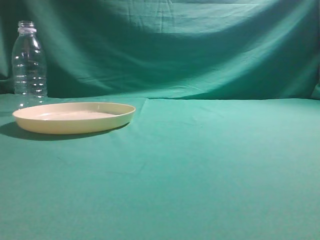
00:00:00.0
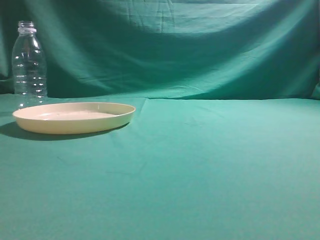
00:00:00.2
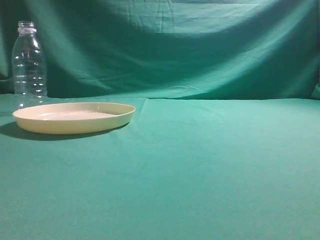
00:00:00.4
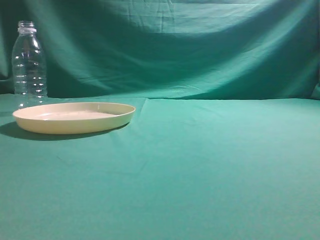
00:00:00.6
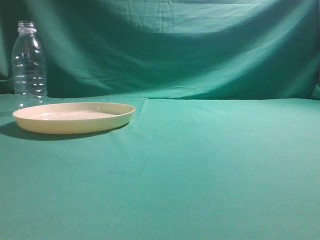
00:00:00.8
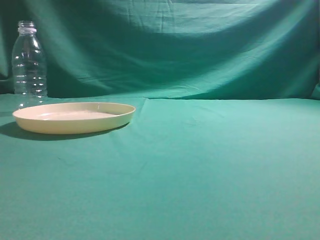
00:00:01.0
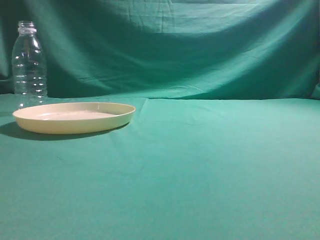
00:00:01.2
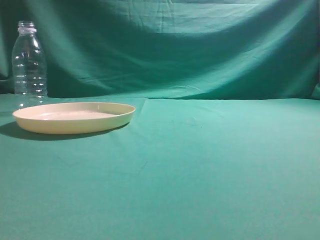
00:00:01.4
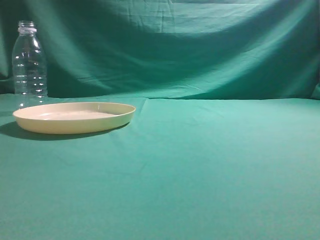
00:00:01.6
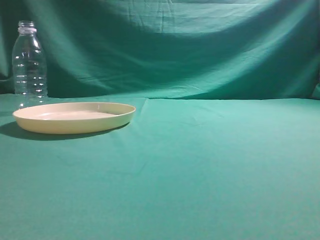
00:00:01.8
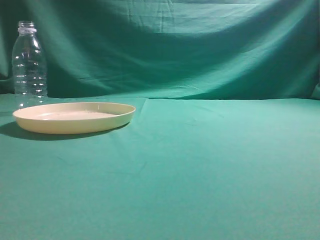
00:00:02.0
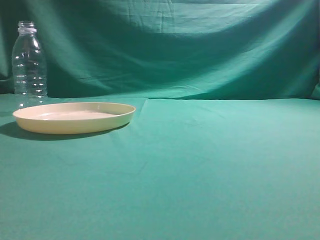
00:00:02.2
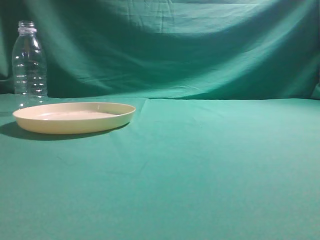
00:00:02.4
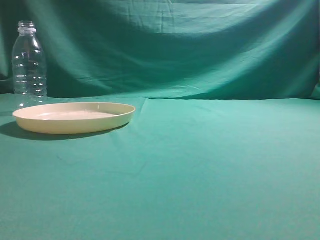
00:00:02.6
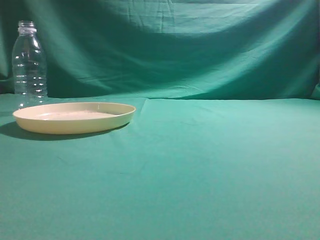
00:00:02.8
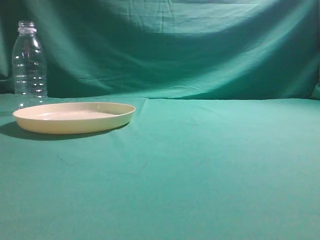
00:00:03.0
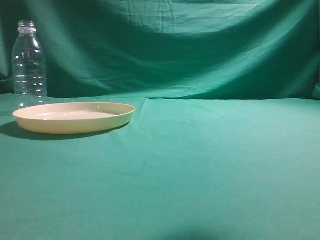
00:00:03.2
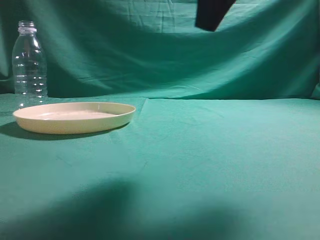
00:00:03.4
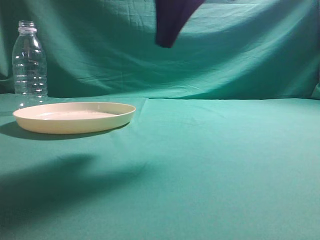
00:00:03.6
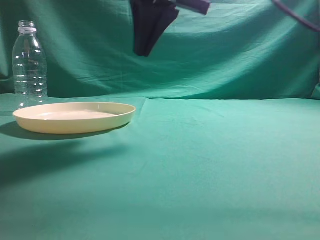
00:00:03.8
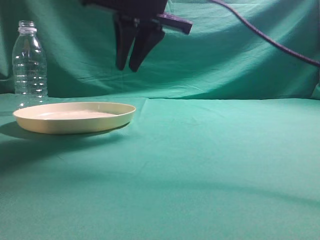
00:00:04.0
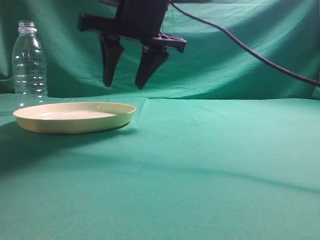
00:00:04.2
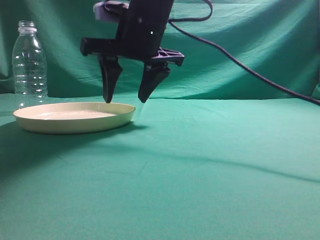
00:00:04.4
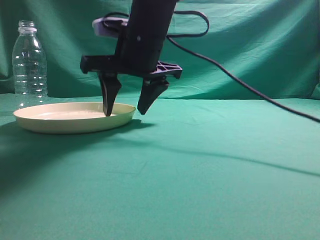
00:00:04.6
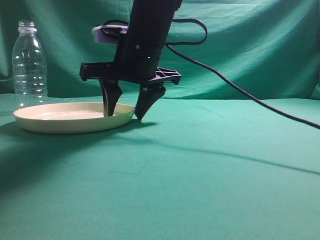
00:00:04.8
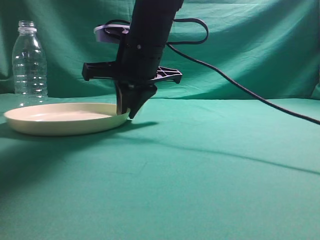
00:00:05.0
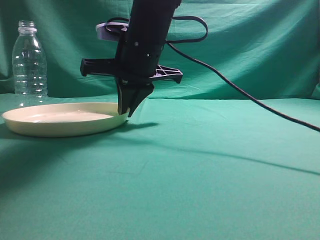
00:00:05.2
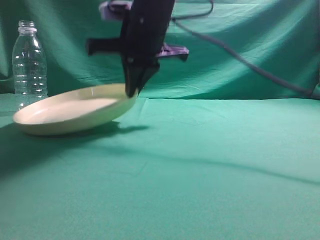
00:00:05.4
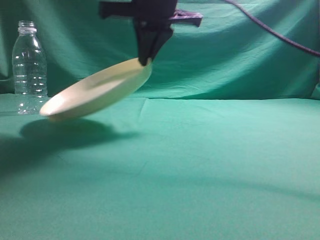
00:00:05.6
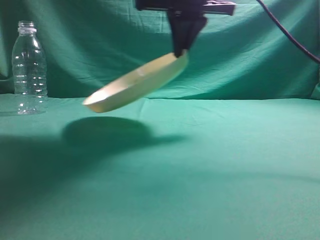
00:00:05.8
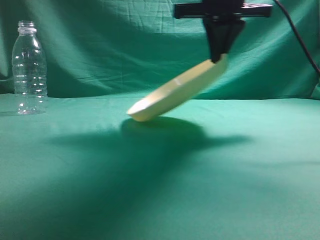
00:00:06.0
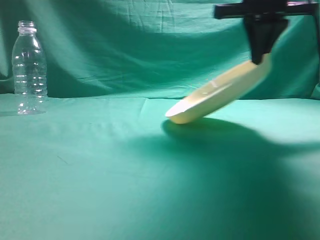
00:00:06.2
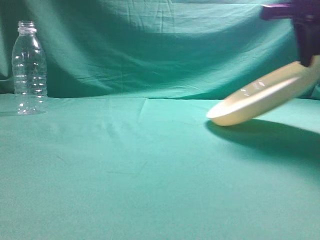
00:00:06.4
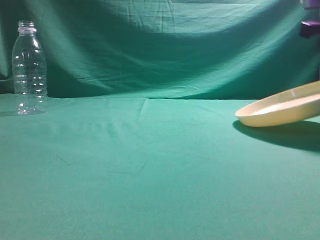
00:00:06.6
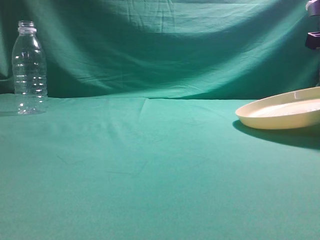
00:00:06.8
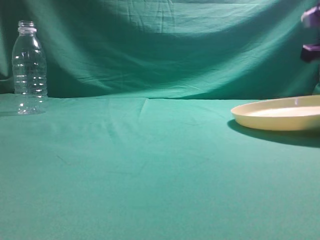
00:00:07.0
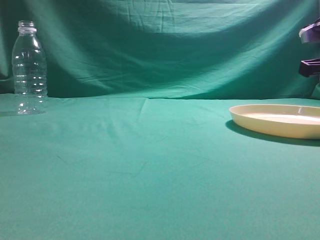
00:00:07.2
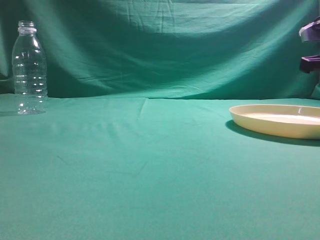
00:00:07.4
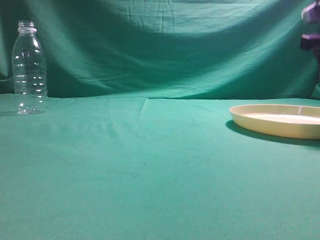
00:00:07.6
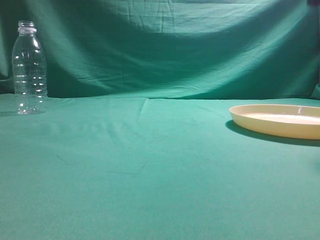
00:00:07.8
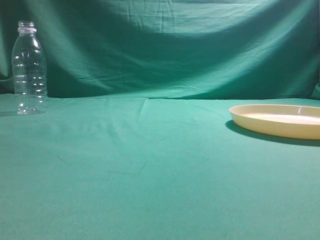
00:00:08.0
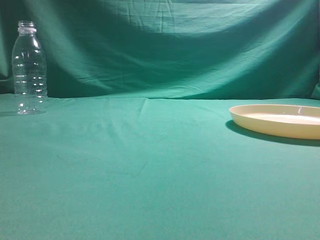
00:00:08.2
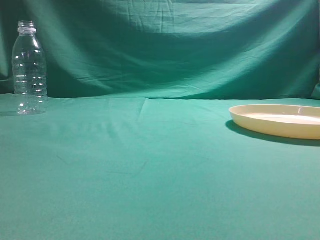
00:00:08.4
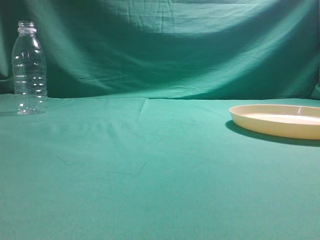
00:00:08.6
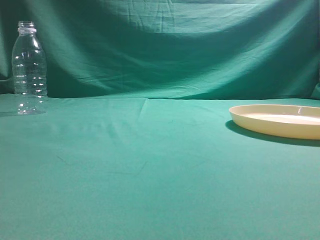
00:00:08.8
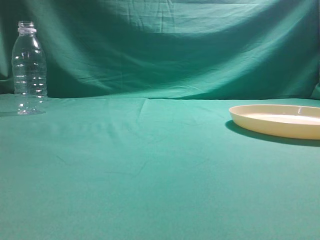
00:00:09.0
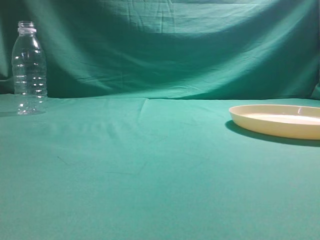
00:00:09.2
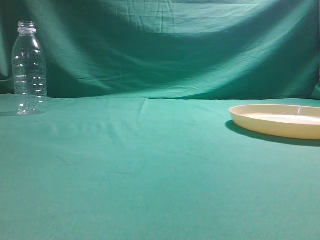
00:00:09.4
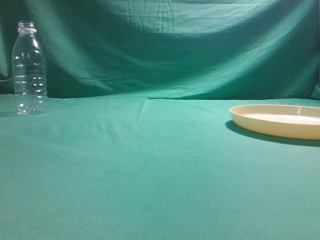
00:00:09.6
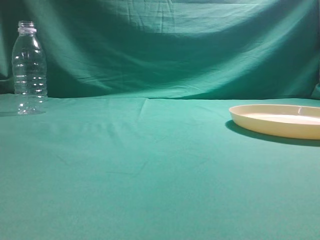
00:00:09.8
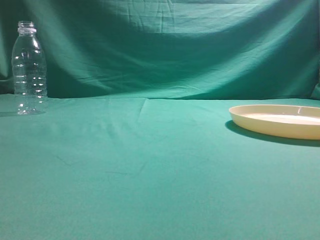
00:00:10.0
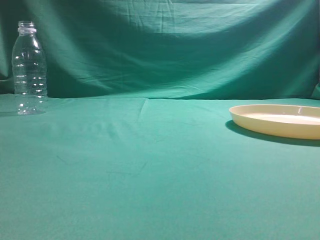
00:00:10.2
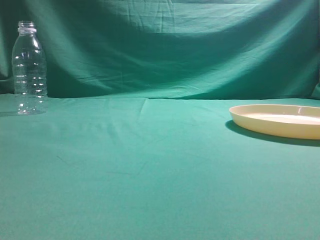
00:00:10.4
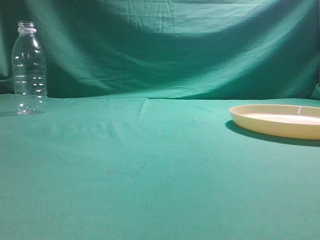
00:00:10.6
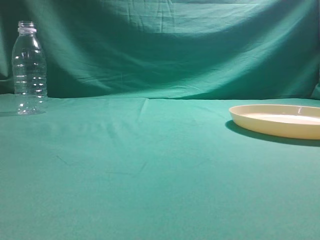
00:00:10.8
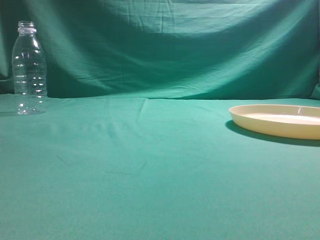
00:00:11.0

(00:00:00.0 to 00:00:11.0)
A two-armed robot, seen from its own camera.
Step, 00:00:00.0 - 00:00:05.6: Pick the container that can hold fruits.
Step, 00:00:05.8 - 00:00:07.6: Move the picked object to the right side of the table.
00:00:01.6 - 00:00:03.2: The right gripper heads forward, to the left and upward, covering about 20 cm.
00:00:03.2 - 00:00:04.8: The right gripper heads to the left, forward and downward, covering roughly 30 cm, and opens up.
00:00:04.8 - 00:00:06.2: The right gripper heads to the right and upward, covering about 20 cm, and closes its fingers.
00:00:06.2 - 00:00:07.8: The right gripper moves to the right, some 15 cm, and opens.

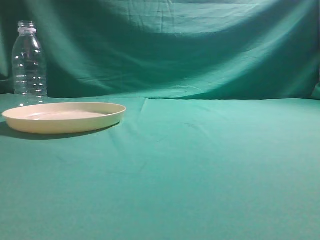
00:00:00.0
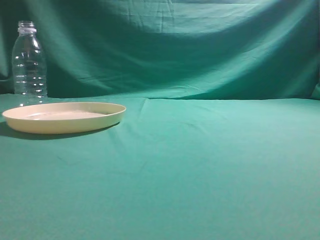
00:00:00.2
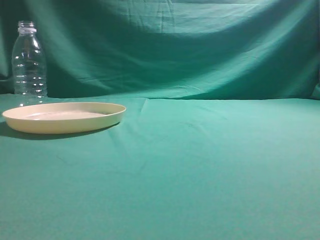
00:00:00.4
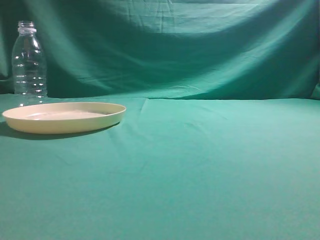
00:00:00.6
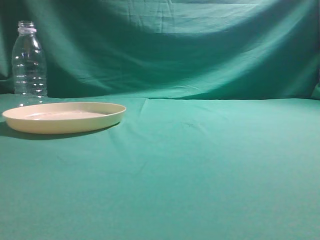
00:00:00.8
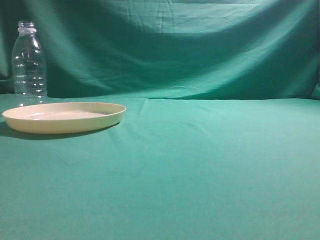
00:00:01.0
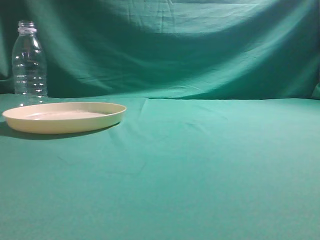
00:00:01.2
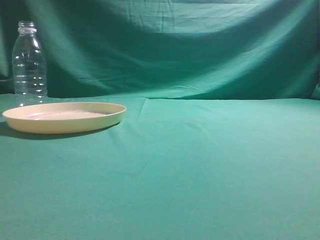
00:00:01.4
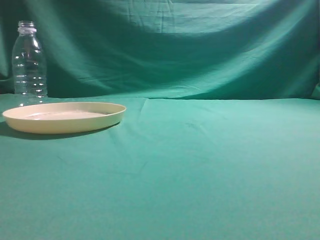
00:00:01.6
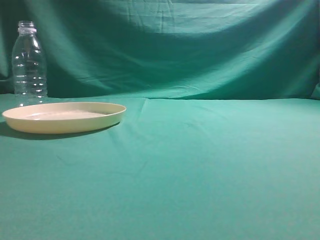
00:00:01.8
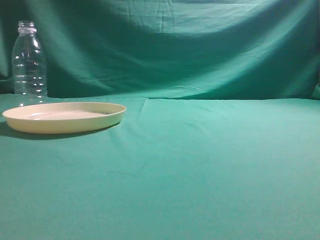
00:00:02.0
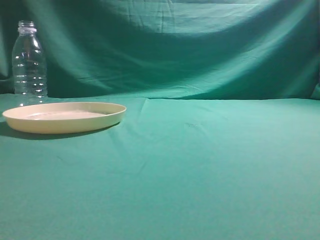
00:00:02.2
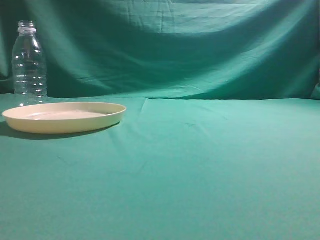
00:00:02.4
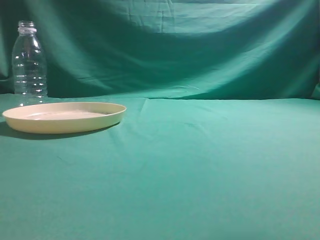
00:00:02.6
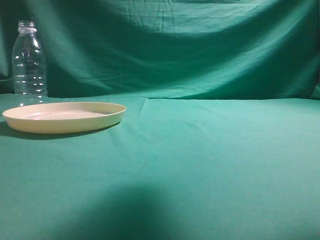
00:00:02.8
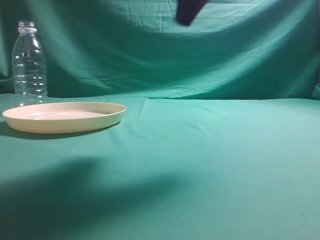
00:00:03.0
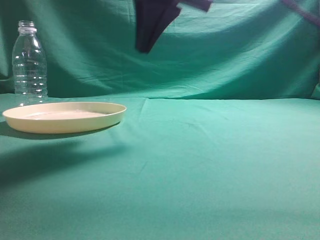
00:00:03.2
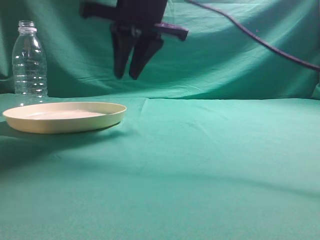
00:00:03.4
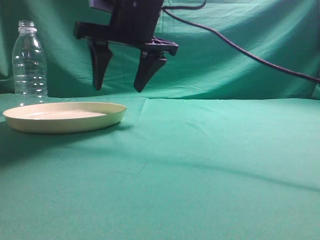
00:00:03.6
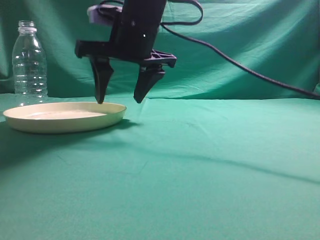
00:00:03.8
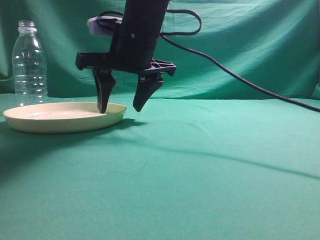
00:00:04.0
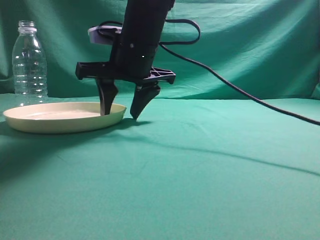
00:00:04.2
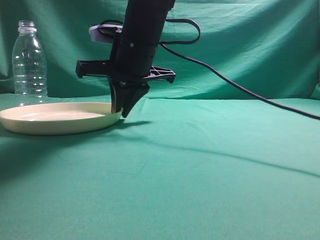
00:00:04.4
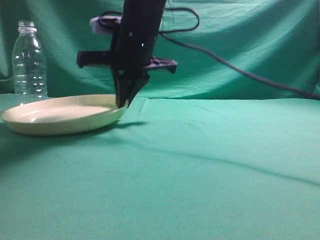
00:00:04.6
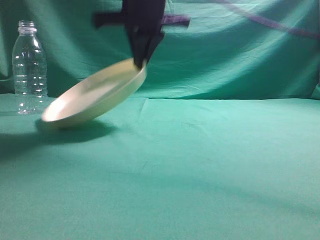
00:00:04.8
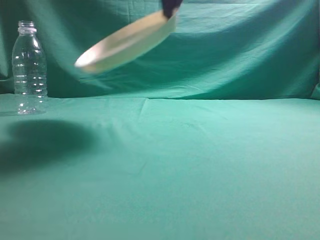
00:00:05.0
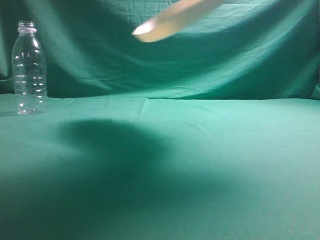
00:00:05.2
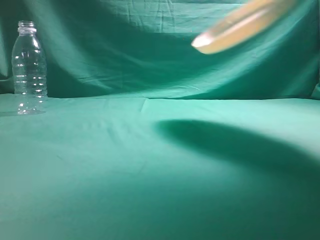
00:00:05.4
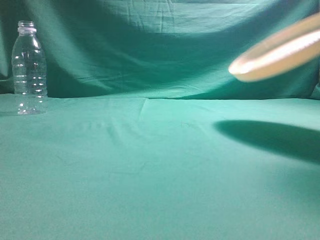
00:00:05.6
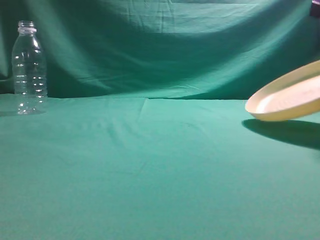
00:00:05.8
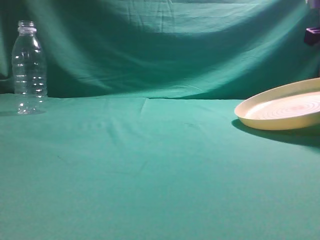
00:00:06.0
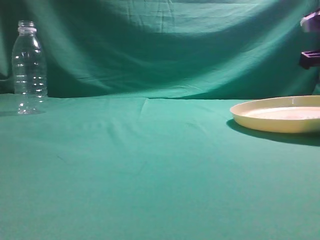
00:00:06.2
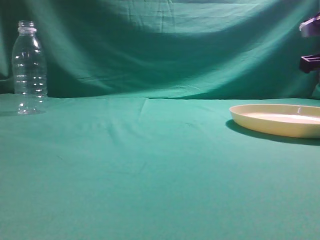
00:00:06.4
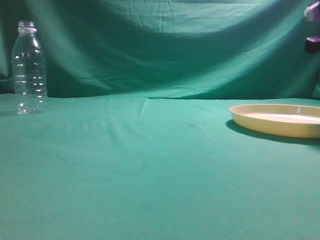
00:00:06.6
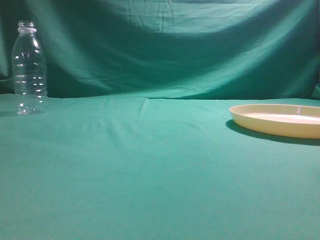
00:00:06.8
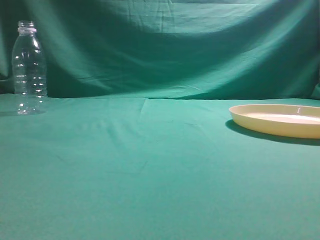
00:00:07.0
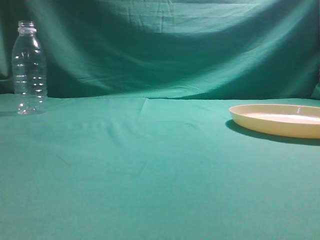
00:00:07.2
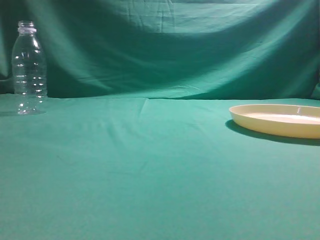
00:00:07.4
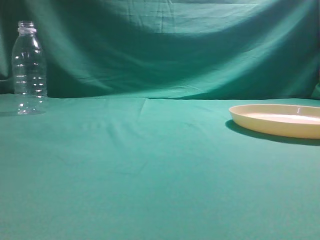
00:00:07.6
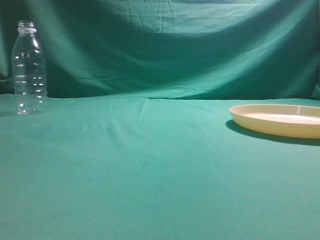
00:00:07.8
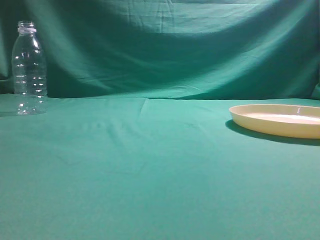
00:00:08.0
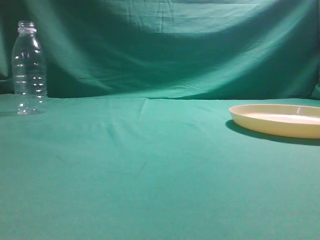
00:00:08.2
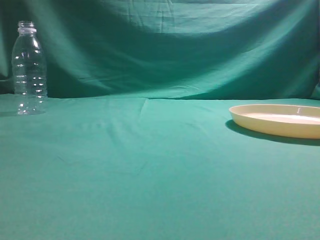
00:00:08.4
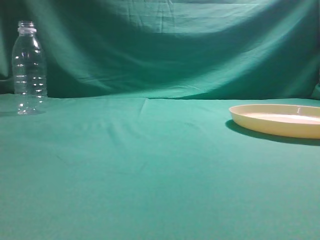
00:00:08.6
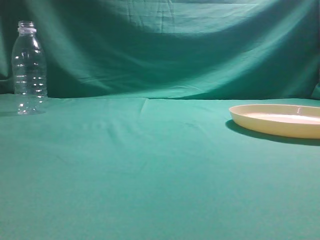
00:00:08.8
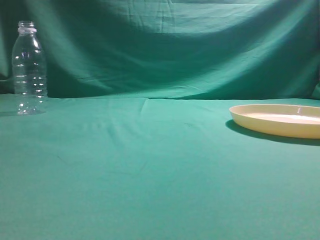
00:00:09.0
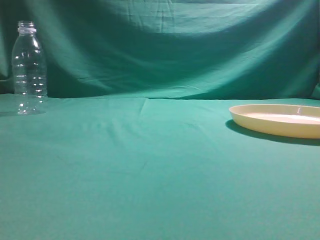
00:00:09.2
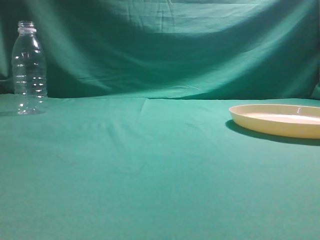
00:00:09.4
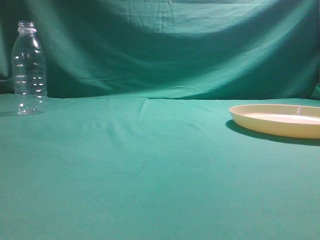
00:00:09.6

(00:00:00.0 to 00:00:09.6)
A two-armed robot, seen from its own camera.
Step, 00:00:00.0 - 00:00:04.8: Pick the container that can hold fruits.
Step, 00:00:05.0 - 00:00:06.6: Move the picked object to the right side of the table.
00:00:01.6 - 00:00:03.2: The right gripper heads forward and to the left, covering roughly 35 cm.
00:00:03.2 - 00:00:04.8: The right gripper goes approximately 10 cm forward, downward and to the left, and opens and closes again.
00:00:04.8 - 00:00:06.4: The right gripper shifts approximately 30 cm to the right.
00:00:06.4 - 00:00:08.0: The right gripper goes approximately 40 cm backward and upward, and opens and closes again.
